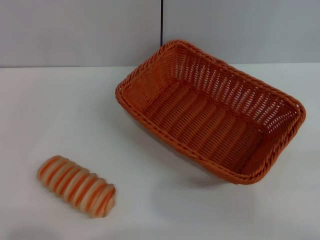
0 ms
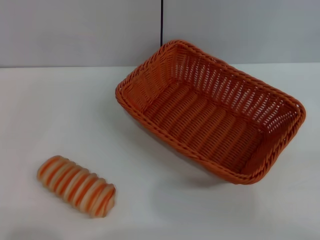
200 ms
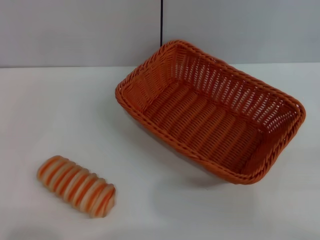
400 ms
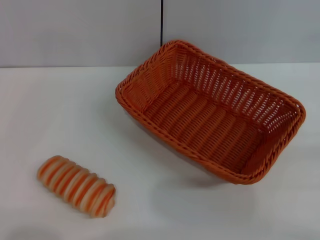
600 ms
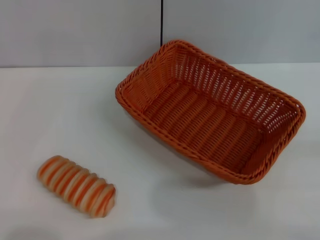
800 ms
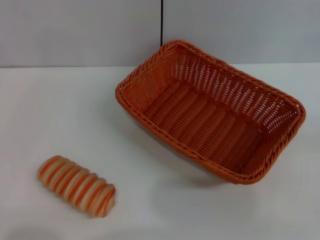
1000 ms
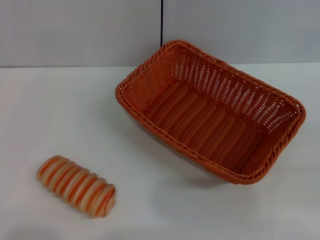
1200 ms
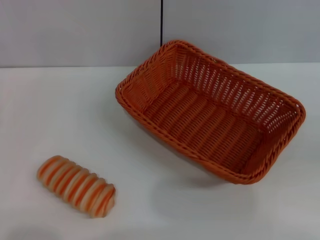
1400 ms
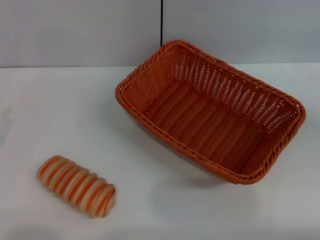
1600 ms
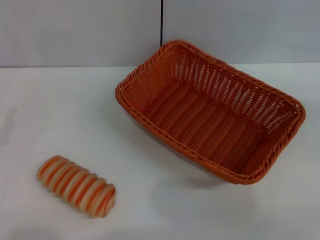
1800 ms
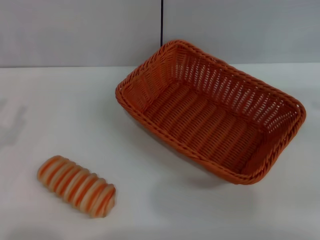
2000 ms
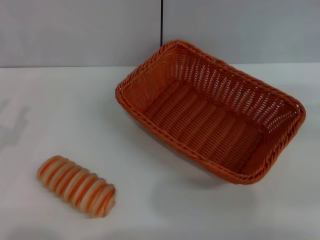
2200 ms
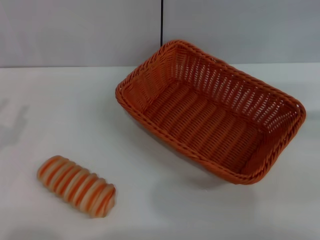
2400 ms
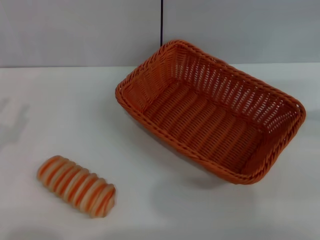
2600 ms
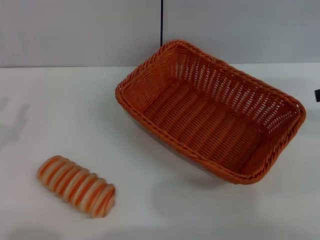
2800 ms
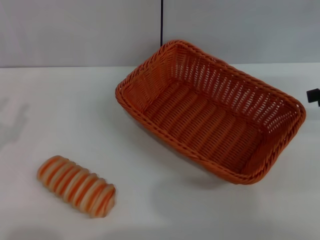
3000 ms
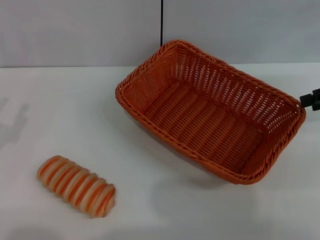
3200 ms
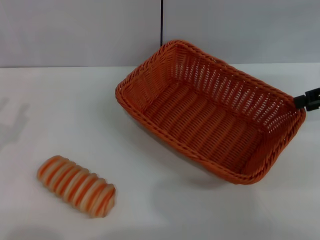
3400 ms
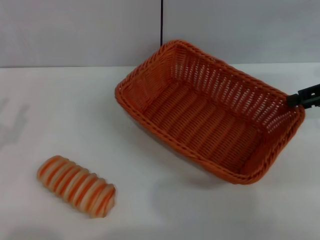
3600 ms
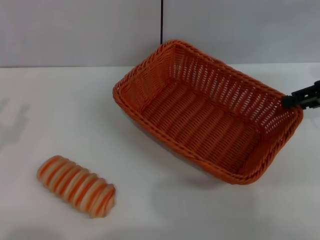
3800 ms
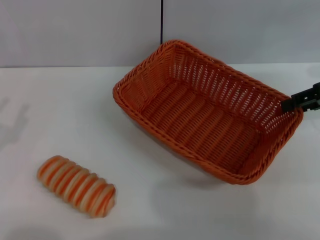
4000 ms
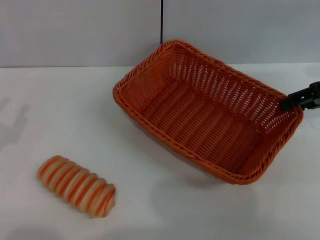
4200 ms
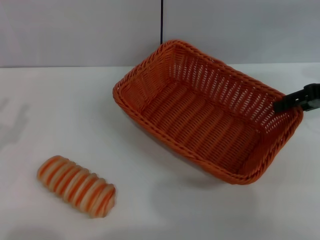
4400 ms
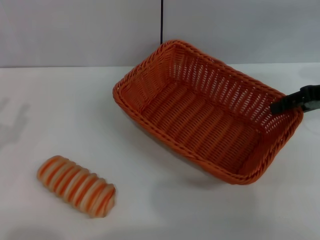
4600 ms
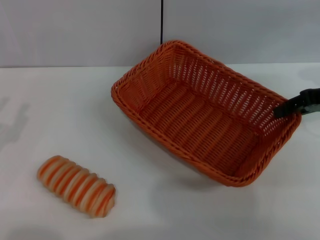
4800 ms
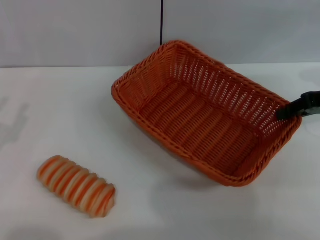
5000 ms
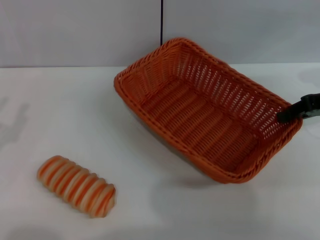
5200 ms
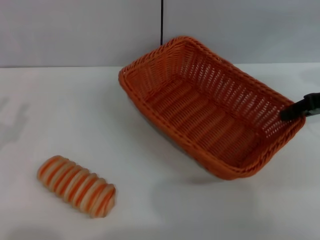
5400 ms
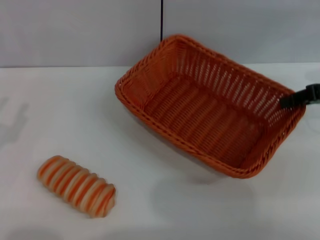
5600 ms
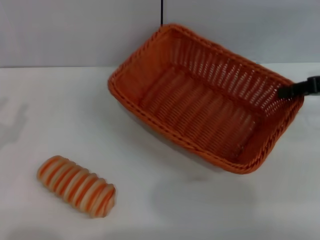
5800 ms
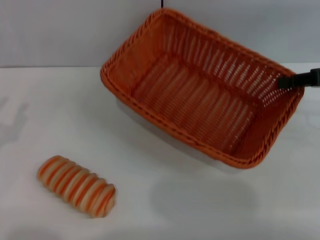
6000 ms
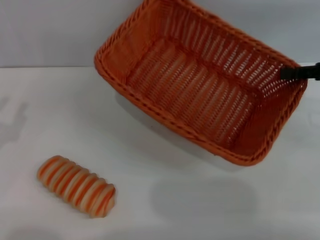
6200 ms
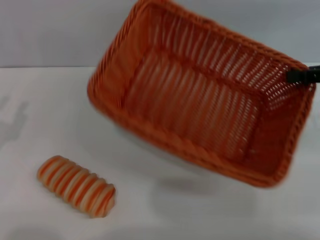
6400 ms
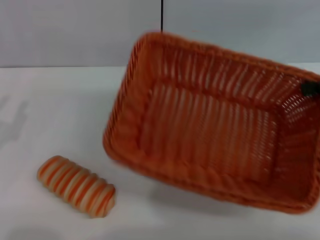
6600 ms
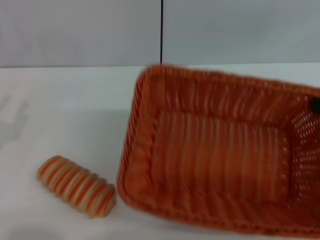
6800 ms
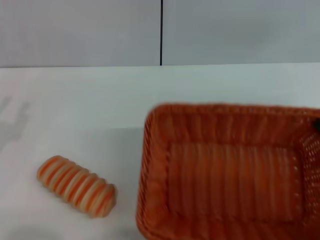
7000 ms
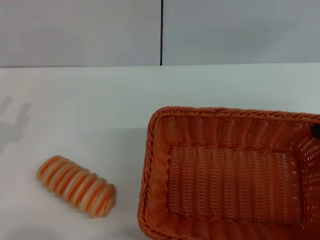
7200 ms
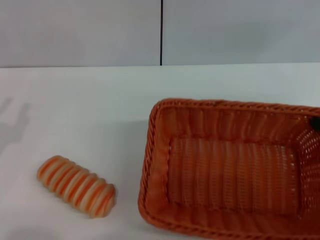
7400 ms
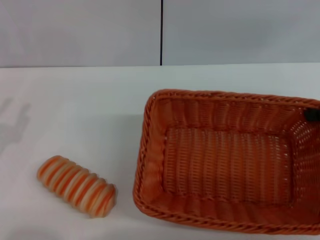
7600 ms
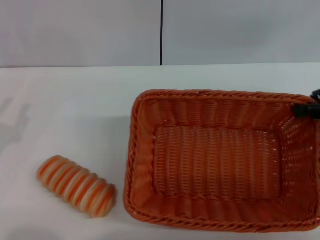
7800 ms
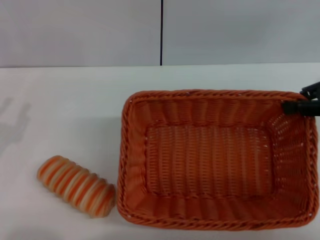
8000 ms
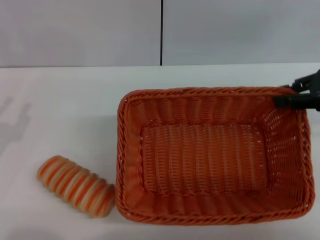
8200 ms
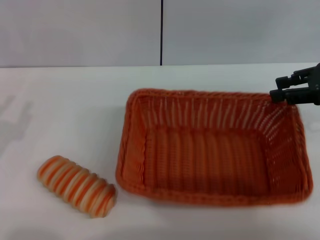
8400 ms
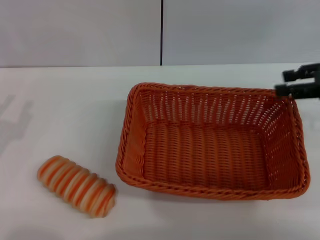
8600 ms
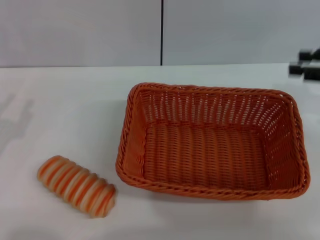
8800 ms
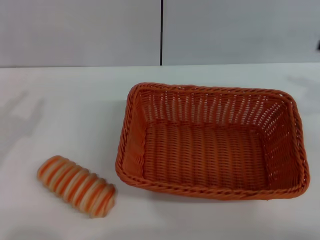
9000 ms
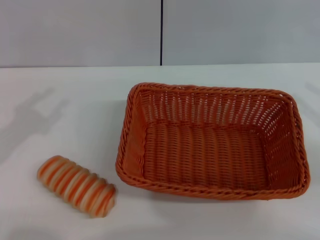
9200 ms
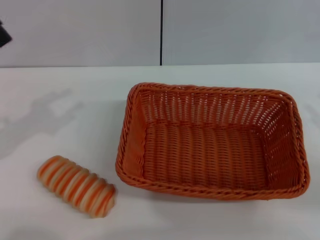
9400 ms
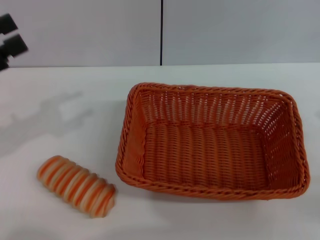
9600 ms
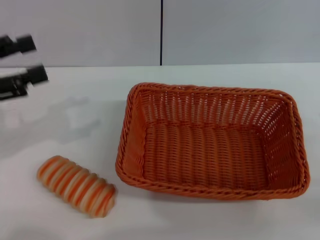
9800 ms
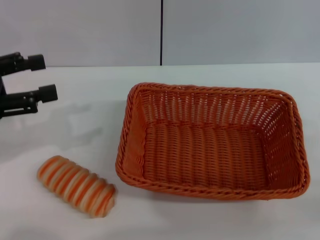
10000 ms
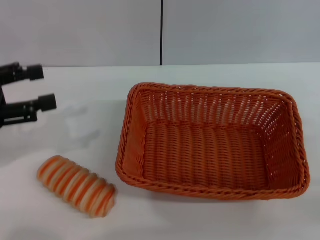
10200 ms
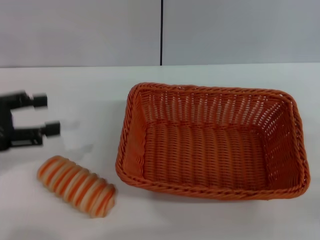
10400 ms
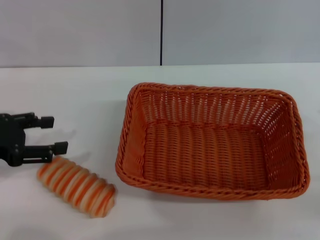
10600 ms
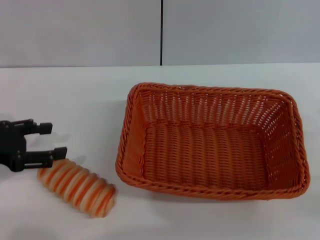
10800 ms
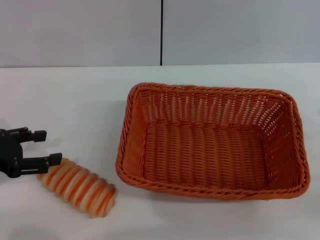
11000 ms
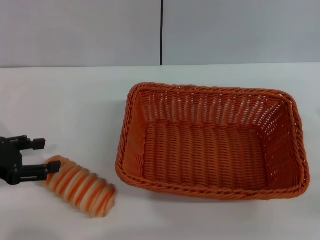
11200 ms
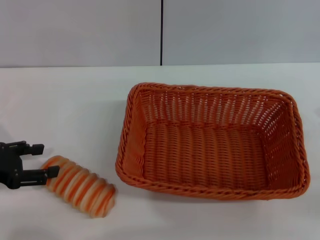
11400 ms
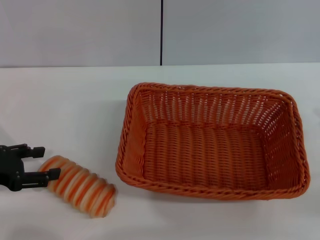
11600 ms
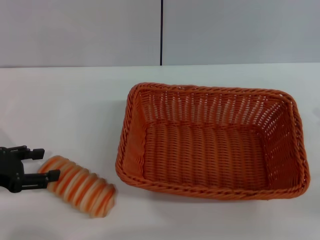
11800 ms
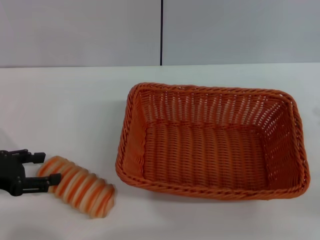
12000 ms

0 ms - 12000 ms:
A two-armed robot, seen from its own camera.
Step, 0 ms - 6000 ms: Pick up the light basket with the right gripper.
Step, 6200 ms - 8600 ms: Place the light basket in the center of view with the right gripper.
0 ms - 1600 ms: The right gripper heads upward and forward, covering approximately 20 cm.
3000 ms - 4400 ms: The right gripper shifts by approximately 5 cm.
4400 ms - 6000 ms: The right gripper closes up.
7600 ms - 9000 ms: The right gripper opens its fingers.
9000 ms - 10400 ms: The left gripper goes roughly 5 cm upward.
10400 ms - 12000 ms: The left gripper shifts some 10 cm downward.

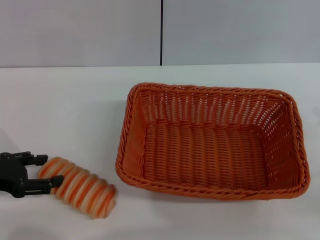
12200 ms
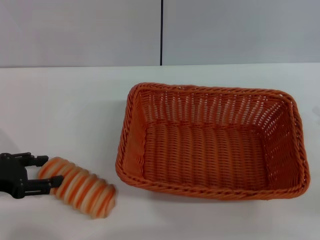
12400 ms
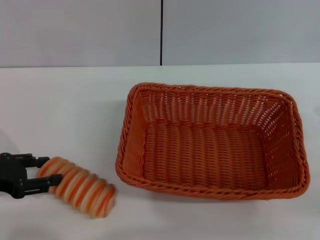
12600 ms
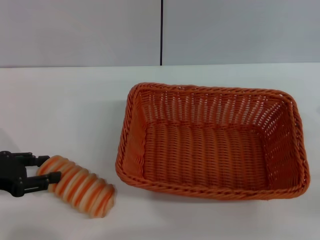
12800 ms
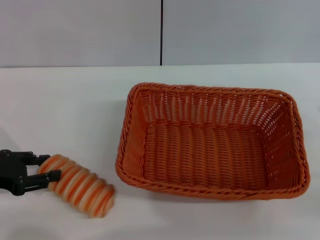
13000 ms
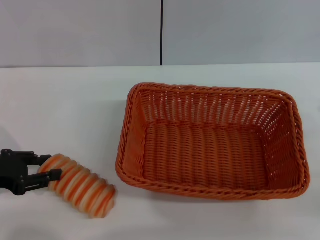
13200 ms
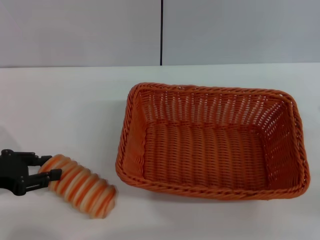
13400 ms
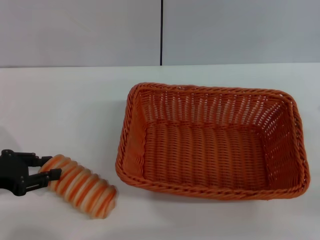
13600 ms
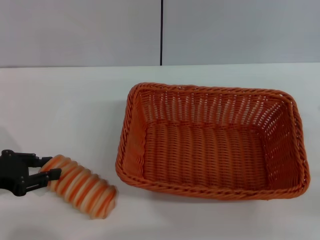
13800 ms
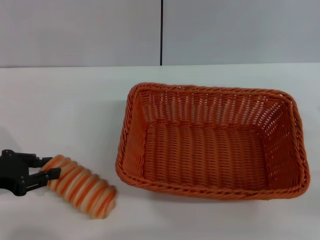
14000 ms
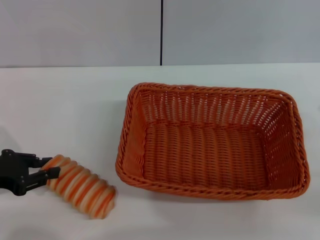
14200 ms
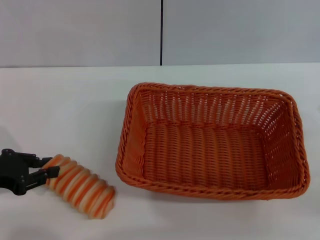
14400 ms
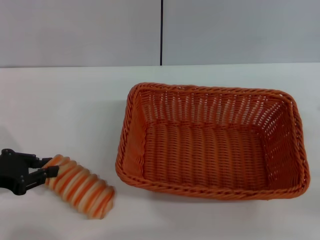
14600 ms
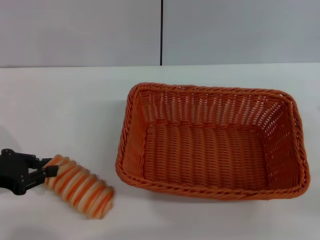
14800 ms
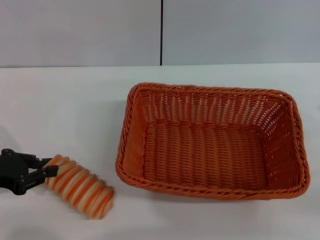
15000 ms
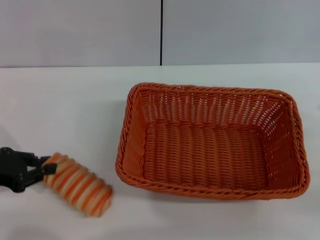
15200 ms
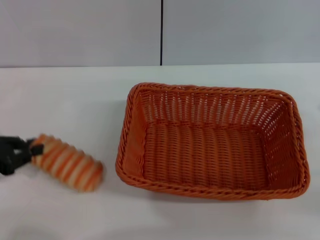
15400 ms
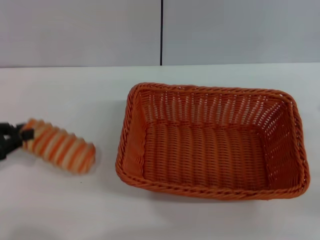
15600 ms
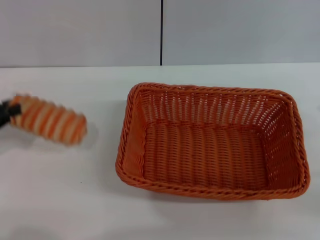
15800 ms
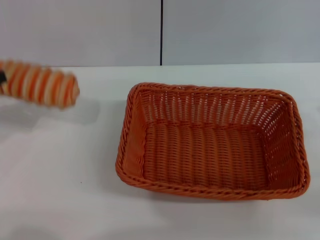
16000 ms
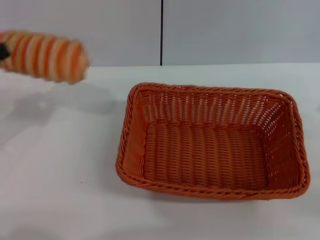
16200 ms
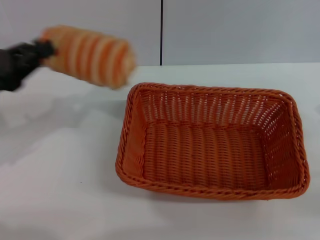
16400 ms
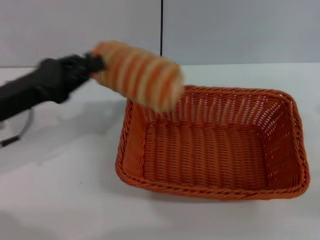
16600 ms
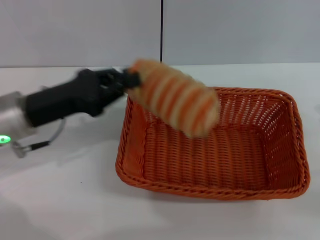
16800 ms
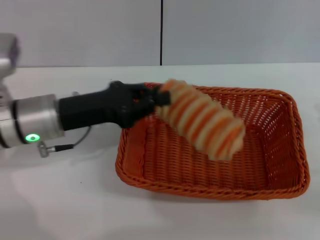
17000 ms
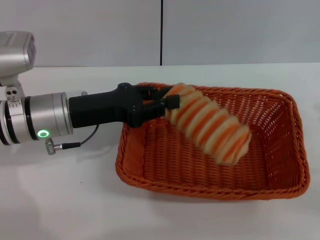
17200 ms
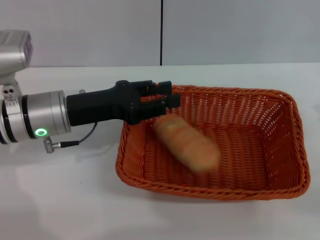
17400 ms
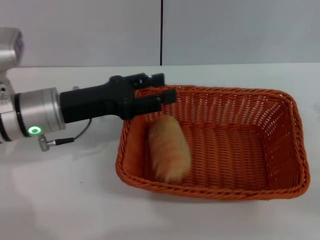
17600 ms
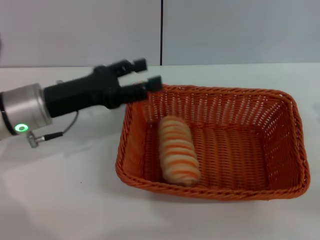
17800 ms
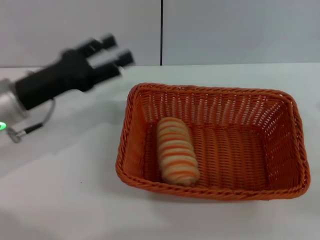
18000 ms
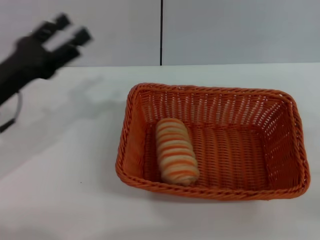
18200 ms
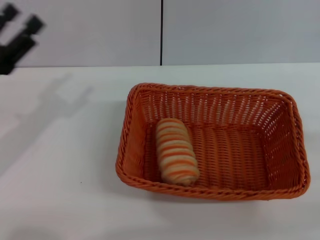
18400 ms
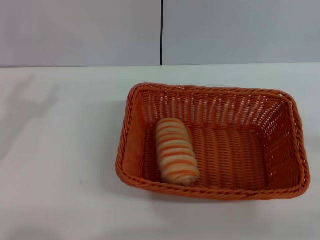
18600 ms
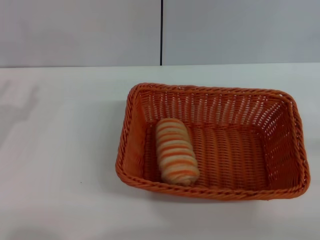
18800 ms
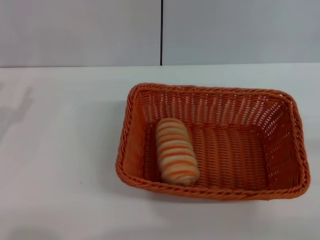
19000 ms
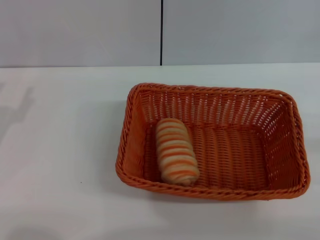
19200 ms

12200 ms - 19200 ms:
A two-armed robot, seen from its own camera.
Step, 12200 ms - 15600 ms: Pick up the long bread with the left gripper.
Step, 15800 ms - 17600 ms: Place the long bread into the light basket with the left gripper.
12200 ms - 13600 ms: The left gripper closes up.
13600 ms - 15000 ms: The left gripper closes.
15000 ms - 16400 ms: The left gripper travels upward by roughly 5 cm.
16400 ms - 17800 ms: The left gripper travels to the right by some 10 cm, and opens.
17800 ms - 19200 ms: The left gripper is displaced to the left and backward by some 15 cm.

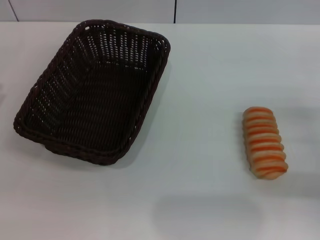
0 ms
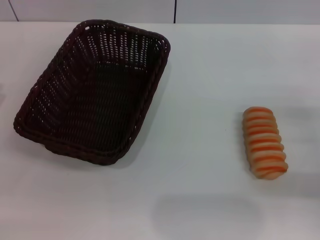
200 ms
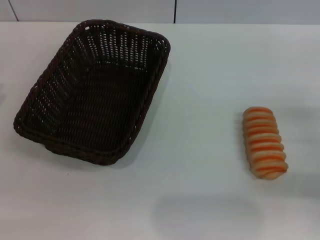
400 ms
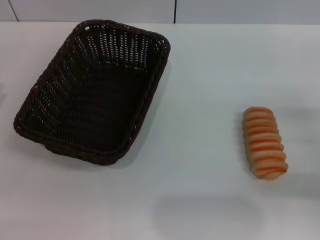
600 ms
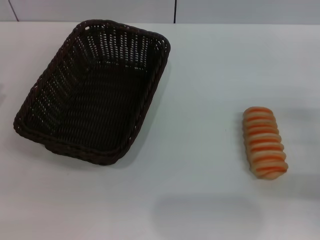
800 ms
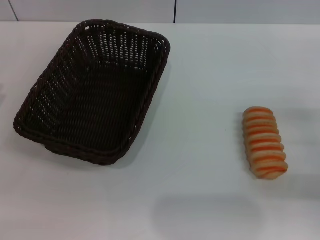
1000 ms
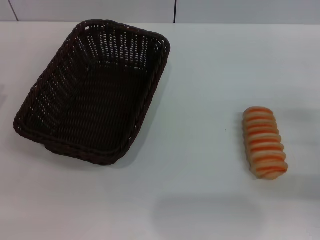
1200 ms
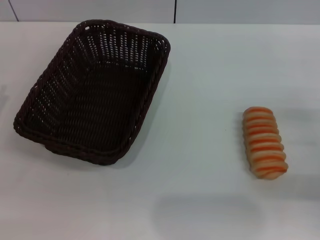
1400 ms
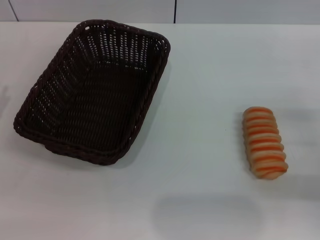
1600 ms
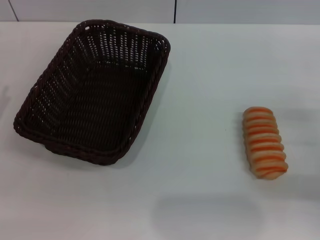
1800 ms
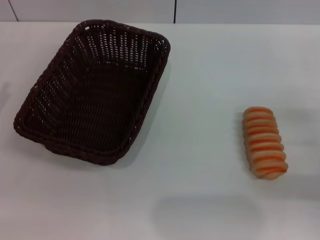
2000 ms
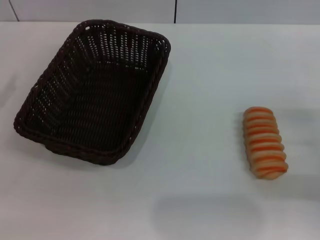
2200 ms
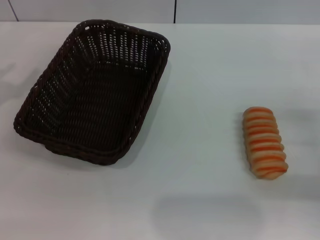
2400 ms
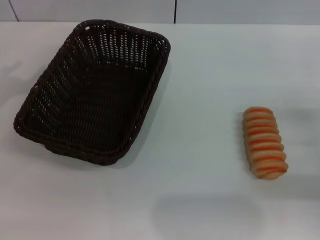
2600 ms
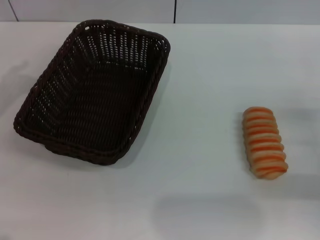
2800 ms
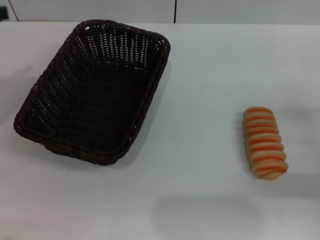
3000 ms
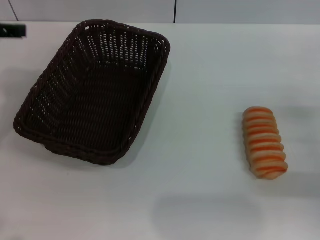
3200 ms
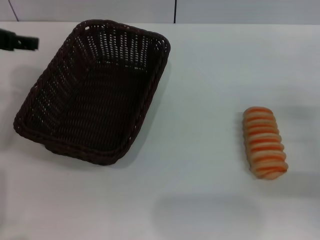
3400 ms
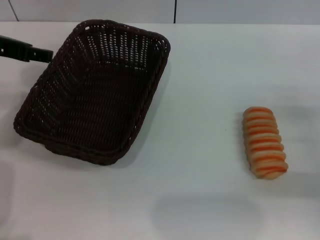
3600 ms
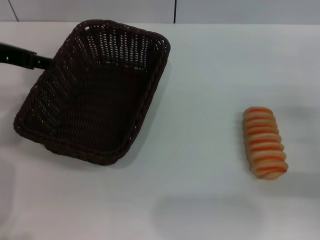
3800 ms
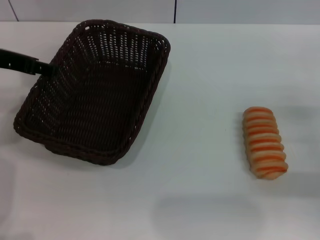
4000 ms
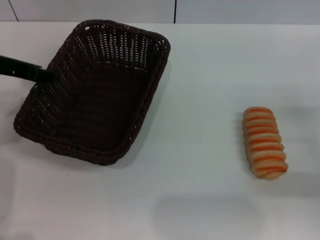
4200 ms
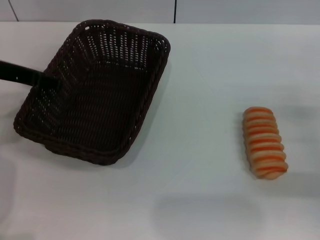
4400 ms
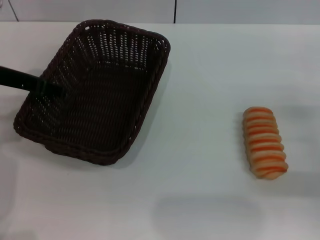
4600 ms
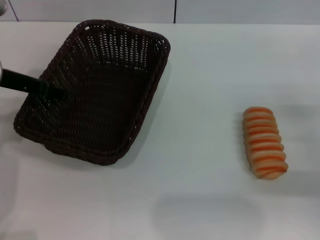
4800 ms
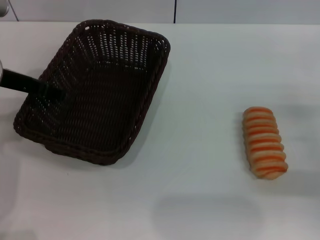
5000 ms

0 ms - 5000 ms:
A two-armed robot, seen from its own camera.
Step, 0 ms - 4800 ms: Grasp the basket with the left gripper.
0 ms - 1600 ms: The two grippers keep their place.
1600 ms - 3400 ms: The left gripper moves upward, forward and to the right, some 20 cm.
3400 ms - 5000 ms: The left gripper travels downward by roughly 5 cm.
